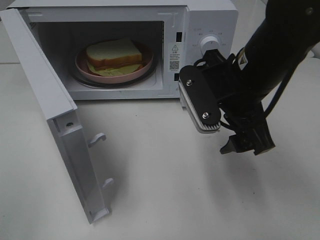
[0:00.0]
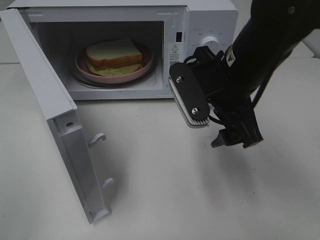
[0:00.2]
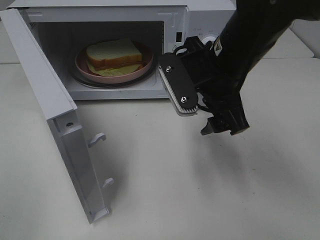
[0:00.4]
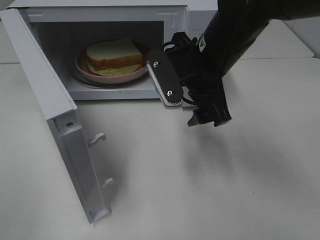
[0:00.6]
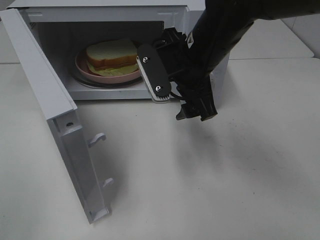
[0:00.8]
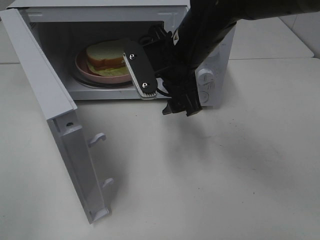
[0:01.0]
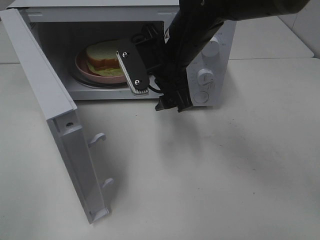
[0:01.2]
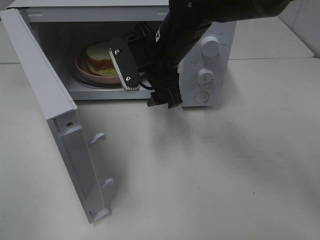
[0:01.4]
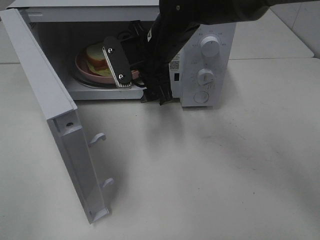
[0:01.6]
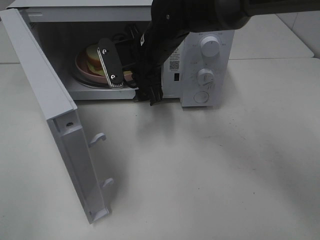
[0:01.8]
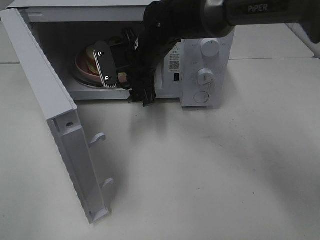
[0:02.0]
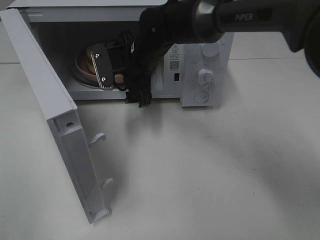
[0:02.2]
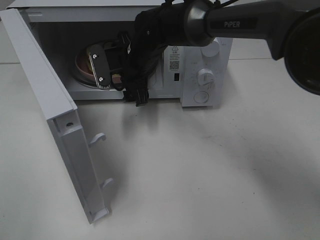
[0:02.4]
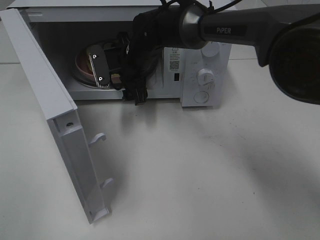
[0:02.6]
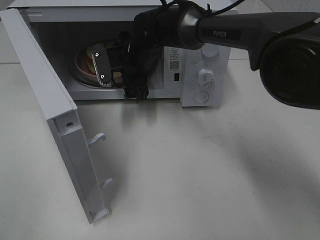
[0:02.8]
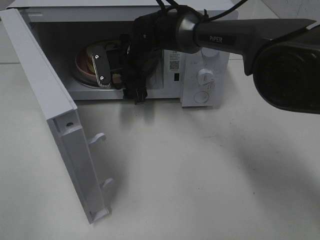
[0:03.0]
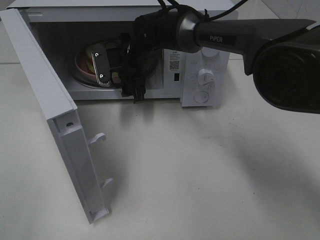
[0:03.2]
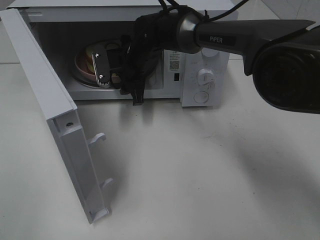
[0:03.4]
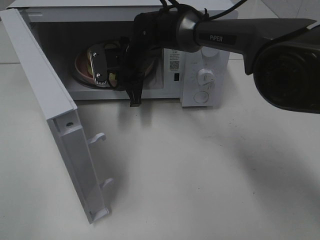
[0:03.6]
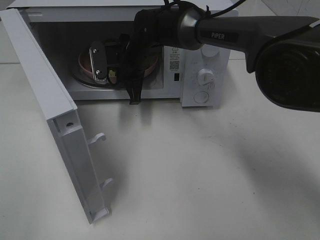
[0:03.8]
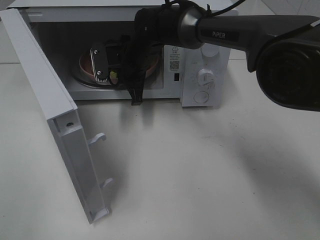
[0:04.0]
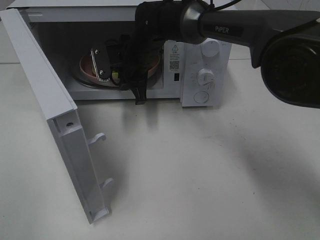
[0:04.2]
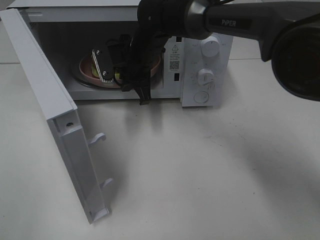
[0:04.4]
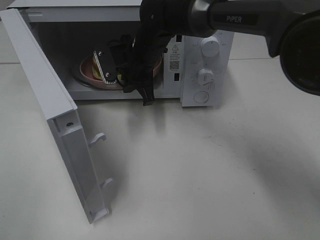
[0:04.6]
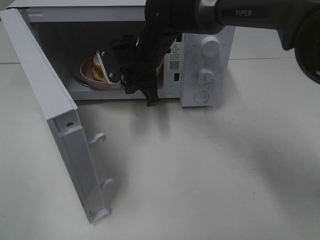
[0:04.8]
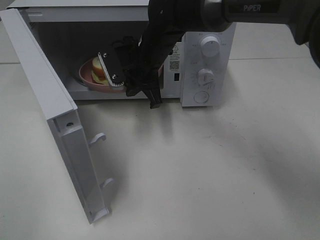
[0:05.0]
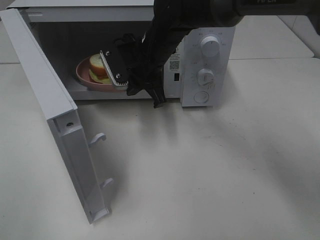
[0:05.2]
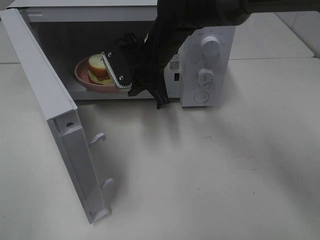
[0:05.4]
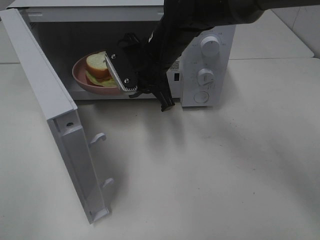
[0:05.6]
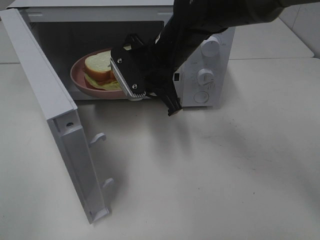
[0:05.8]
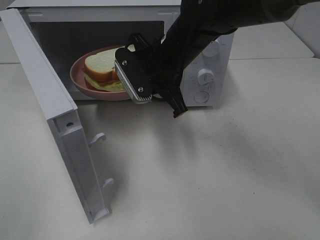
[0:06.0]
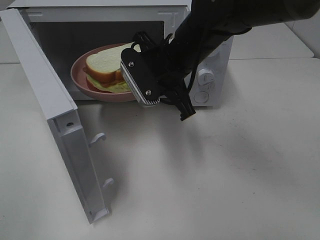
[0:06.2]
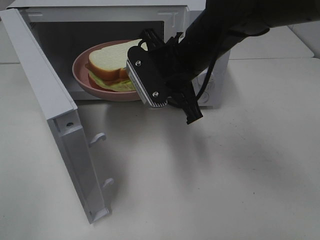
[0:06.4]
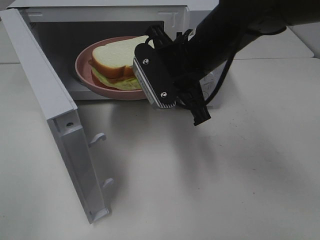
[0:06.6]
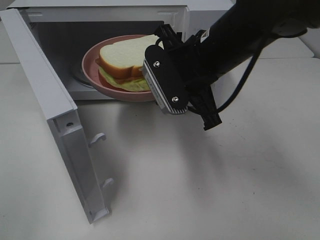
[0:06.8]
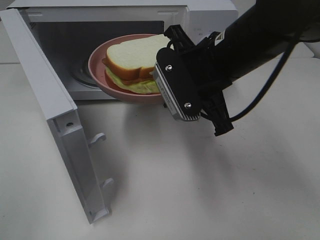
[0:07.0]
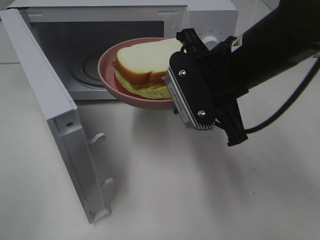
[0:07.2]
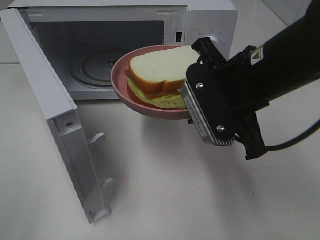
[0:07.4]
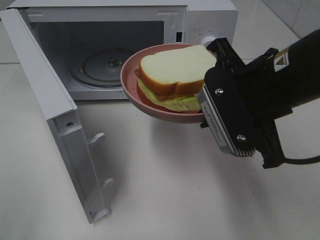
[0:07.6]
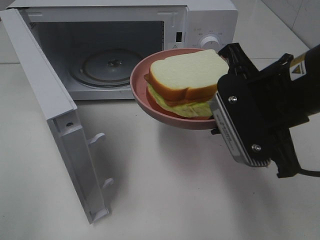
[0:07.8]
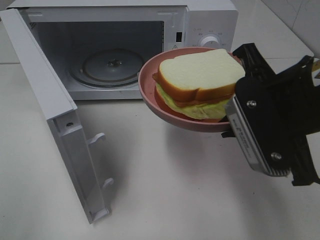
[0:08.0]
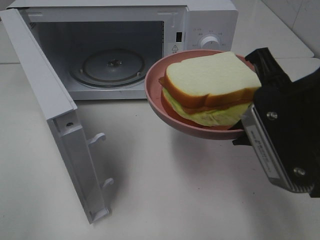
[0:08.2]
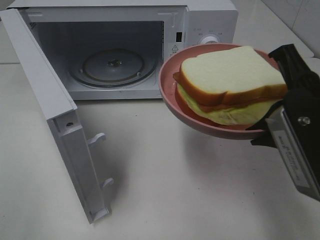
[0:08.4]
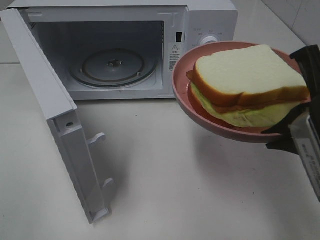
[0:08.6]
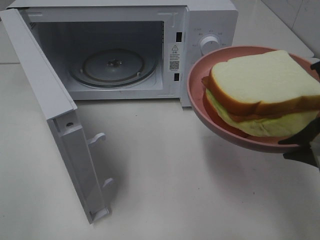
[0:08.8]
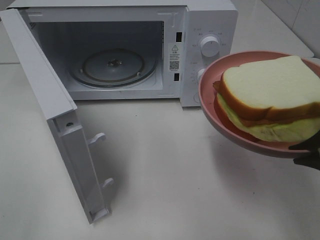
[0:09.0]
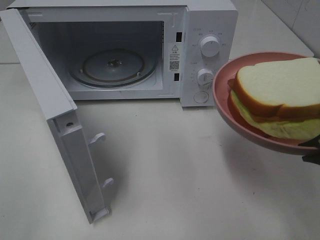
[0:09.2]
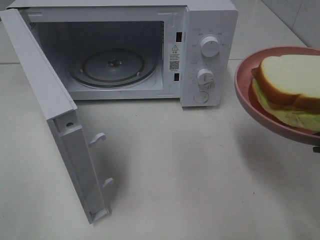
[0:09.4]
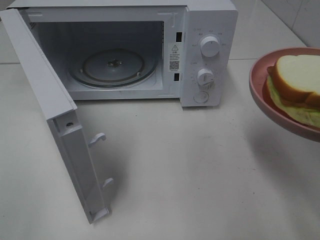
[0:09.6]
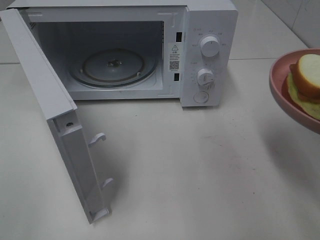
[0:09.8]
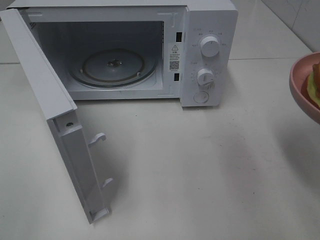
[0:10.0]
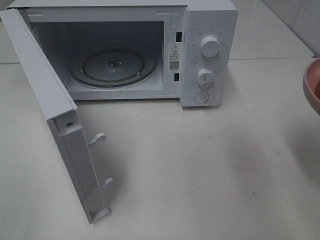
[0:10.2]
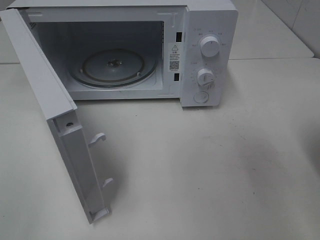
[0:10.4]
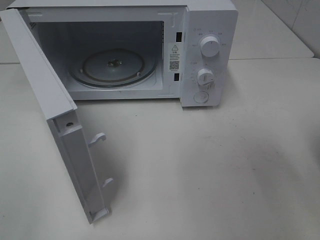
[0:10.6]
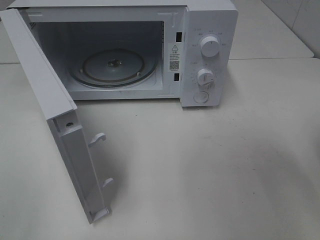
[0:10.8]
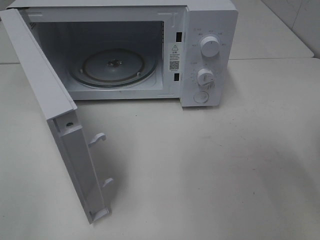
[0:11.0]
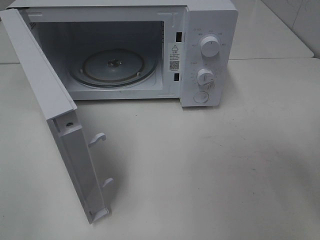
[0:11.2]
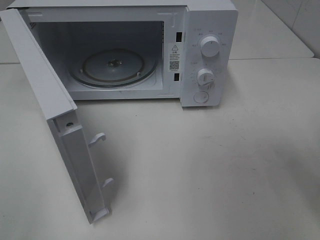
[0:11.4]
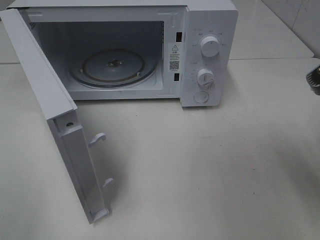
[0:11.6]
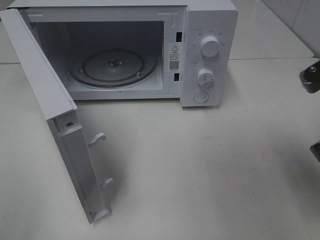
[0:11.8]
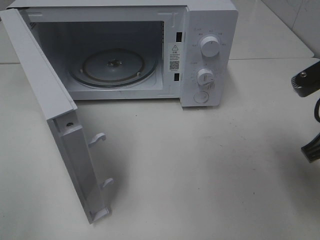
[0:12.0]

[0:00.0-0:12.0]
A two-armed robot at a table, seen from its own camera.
Task of the whole recording: Heat Sandwich.
Step, 0:00.0 to 0:04.0: Right hand: grab the plate with the sandwich.
0:00.0 to 0:01.6: The right gripper heads forward and to the left, covering roughly 15 cm.
0:01.6 to 0:03.0: The right gripper moves forward and downward, some 10 cm.
0:03.0 to 0:04.4: The right gripper closes up.
0:04.4 to 0:06.0: The right gripper goes some 10 cm backward and to the right.
0:06.0 to 0:07.6: The right gripper is displaced backward and to the right by about 15 cm.
0:07.6 to 0:09.0: The right gripper moves backward and to the right, about 10 cm.
0:10.4 to 0:12.0: The right gripper shifts some 5 cm forward.

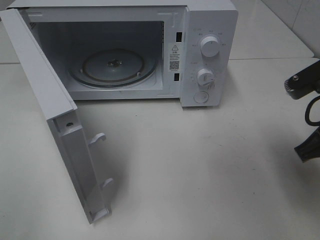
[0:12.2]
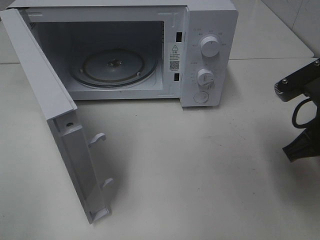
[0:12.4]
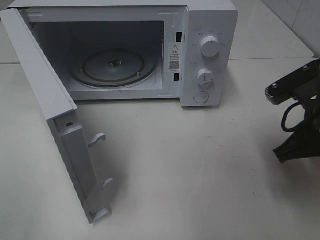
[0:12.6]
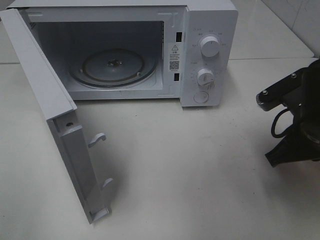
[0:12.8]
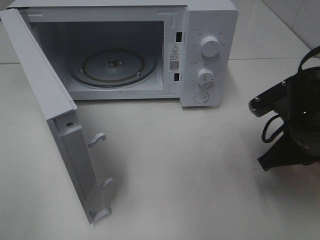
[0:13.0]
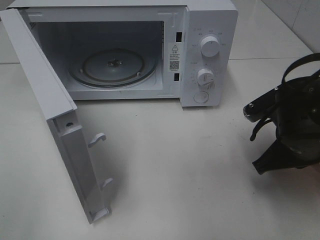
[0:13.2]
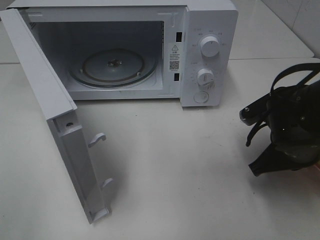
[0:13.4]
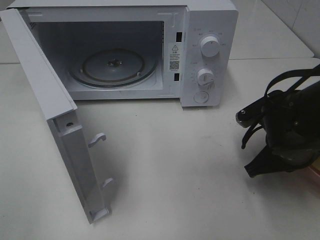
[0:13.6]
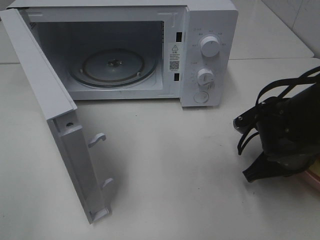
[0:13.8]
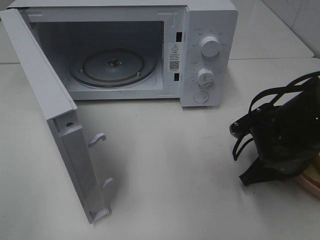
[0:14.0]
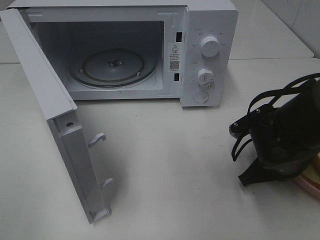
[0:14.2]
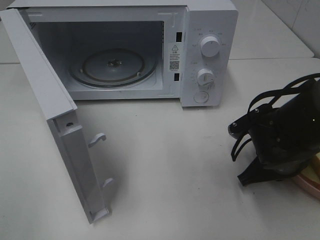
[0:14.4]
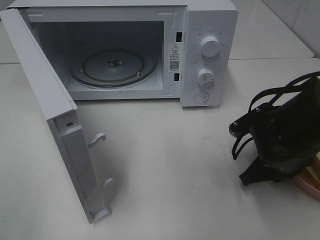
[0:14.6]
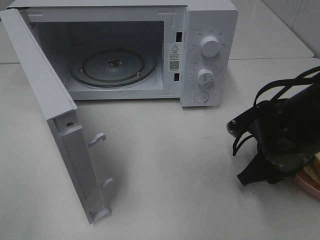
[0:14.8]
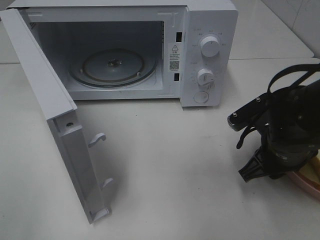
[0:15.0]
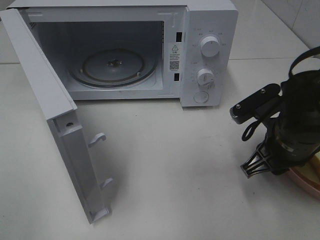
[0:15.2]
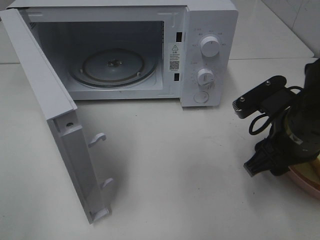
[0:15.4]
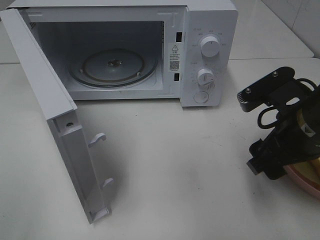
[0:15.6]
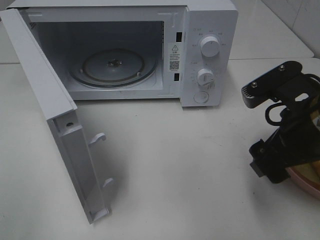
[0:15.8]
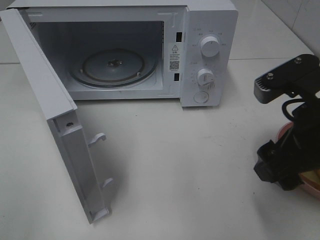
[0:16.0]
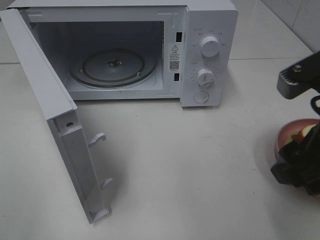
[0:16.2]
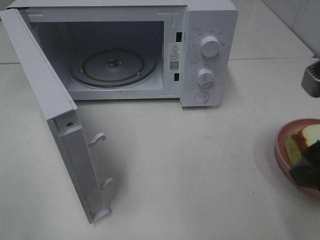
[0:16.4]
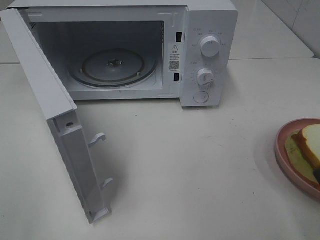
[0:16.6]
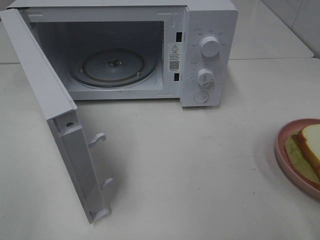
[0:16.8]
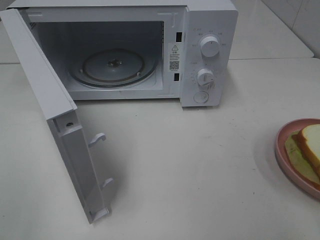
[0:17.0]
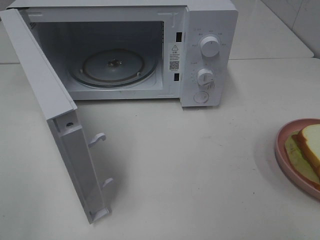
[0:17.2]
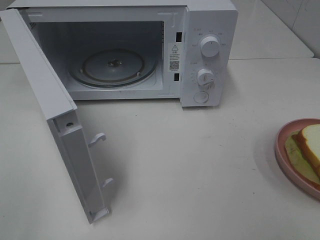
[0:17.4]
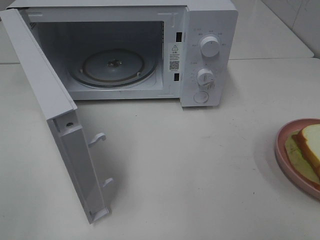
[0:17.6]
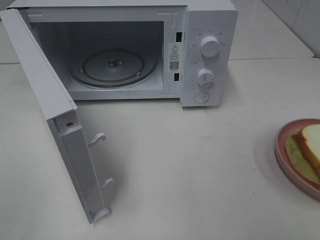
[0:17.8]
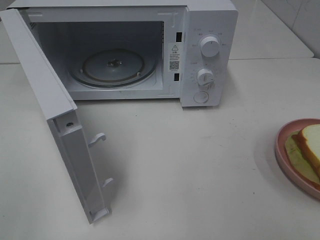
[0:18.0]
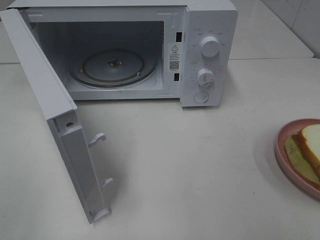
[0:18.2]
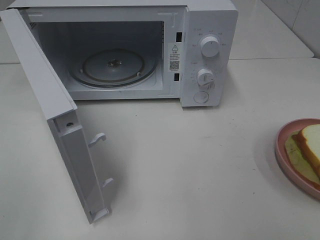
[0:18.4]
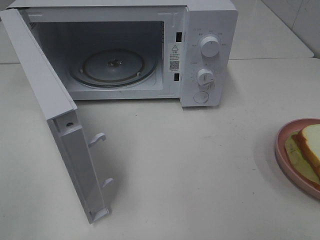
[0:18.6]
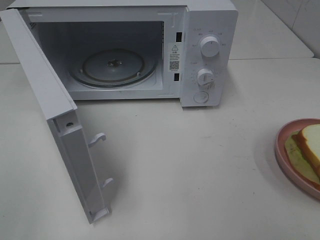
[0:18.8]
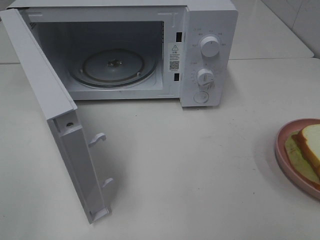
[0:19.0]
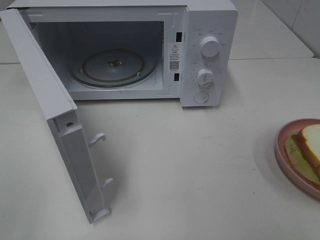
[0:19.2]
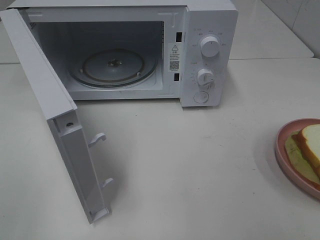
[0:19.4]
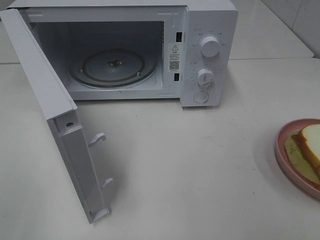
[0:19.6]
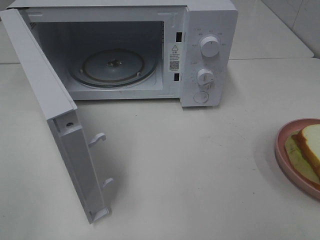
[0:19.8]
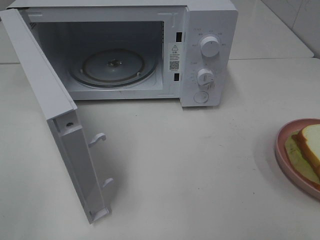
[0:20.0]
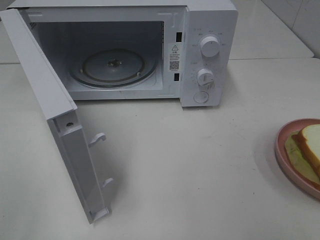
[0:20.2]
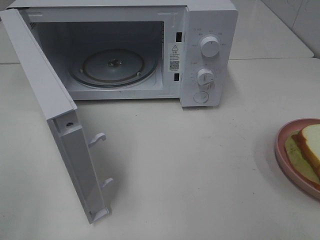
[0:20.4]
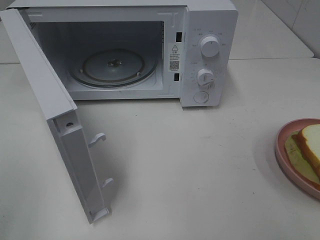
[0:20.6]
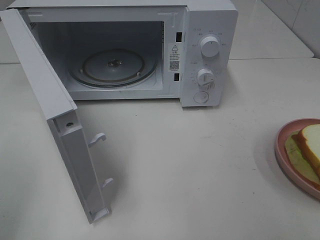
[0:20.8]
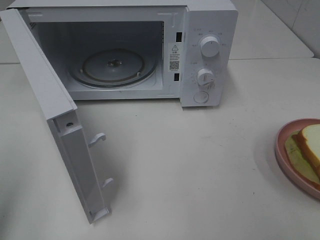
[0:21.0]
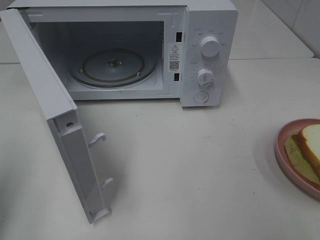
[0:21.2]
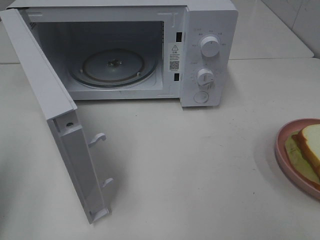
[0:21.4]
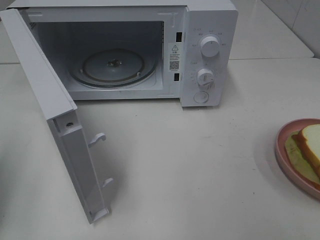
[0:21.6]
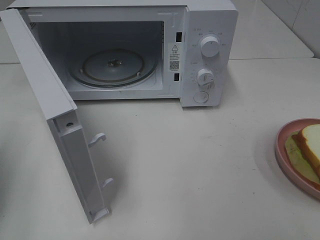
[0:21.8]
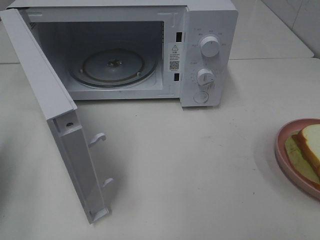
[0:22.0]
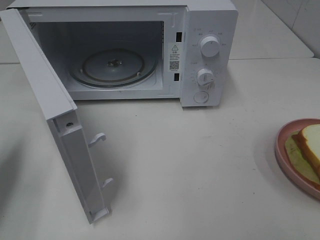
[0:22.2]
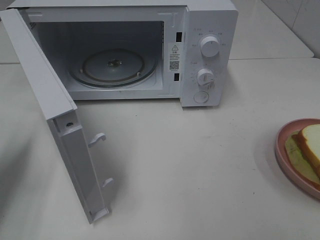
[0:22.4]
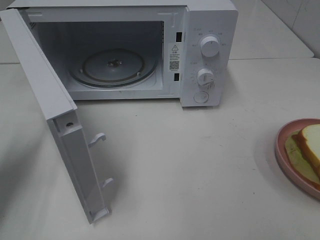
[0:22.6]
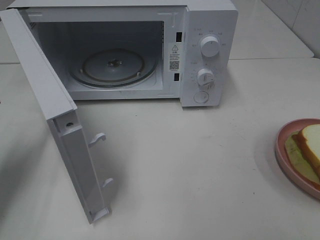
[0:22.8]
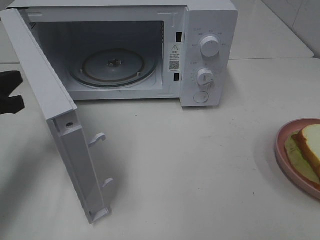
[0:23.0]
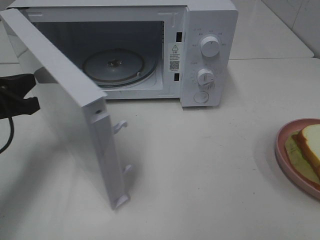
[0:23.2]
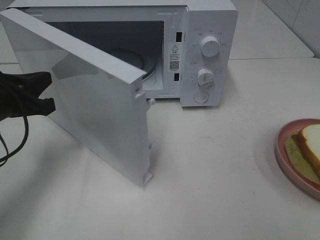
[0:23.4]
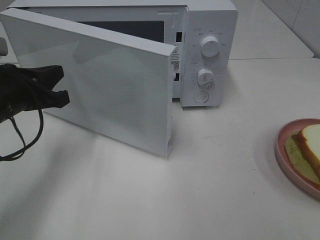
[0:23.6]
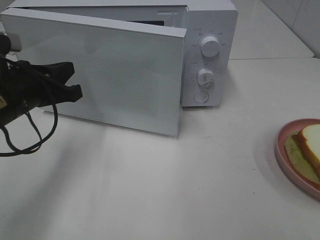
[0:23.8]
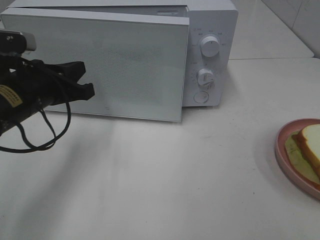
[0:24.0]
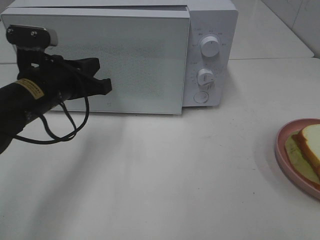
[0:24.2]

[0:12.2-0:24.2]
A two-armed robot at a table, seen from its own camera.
Task of the whole recording: Heat Sandwich.
Step, 0:12.2 to 0:16.2: Right hand: place the plate on the table.
0:12.2 to 0:13.8: The right gripper is displaced downward by approximately 10 cm.
0:13.8 to 0:15.2: The right gripper opens its fingers.
0:15.2 to 0:16.6: The right gripper travels upward and backward by roughly 20 cm, and opens up.
0:16.6 to 0:18.2: The right gripper goes approximately 15 cm backward and to the right.
0:18.2 to 0:19.8: Both grippers stay put.
0:19.8 to 0:21.2: The left gripper moves forward, approximately 10 cm, and closes up.
0:21.2 to 0:22.6: The left gripper is displaced forward and downward by roughly 15 cm.
0:22.6 to 0:24.2: The left gripper moves to the right and forward, approximately 15 cm.
